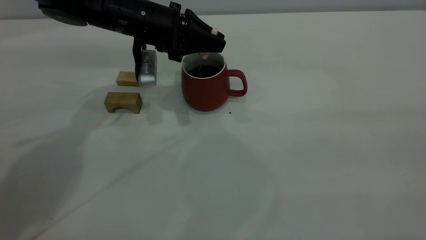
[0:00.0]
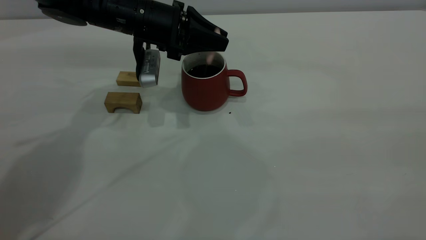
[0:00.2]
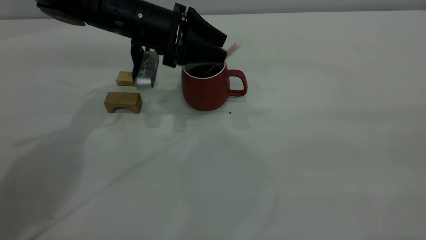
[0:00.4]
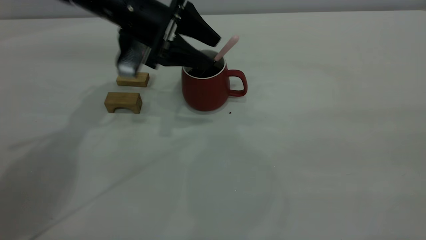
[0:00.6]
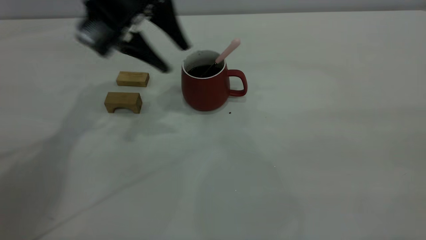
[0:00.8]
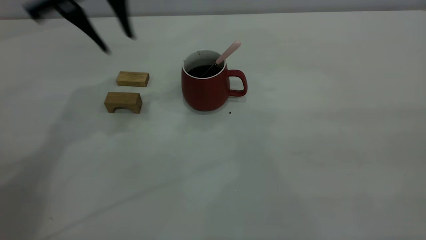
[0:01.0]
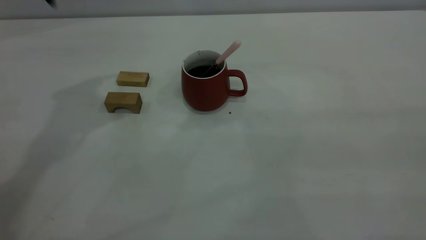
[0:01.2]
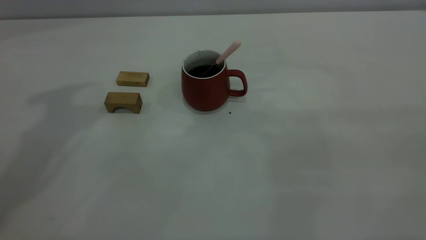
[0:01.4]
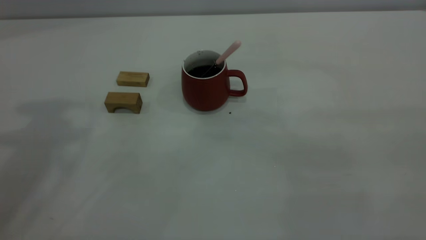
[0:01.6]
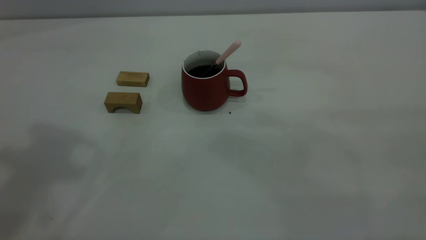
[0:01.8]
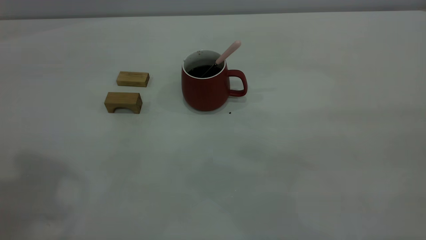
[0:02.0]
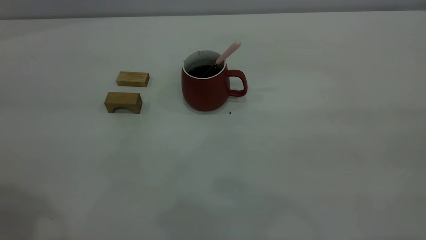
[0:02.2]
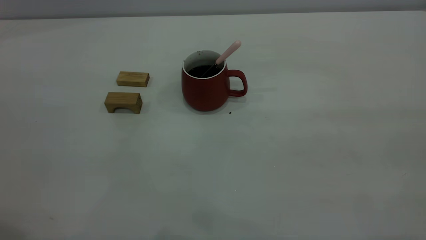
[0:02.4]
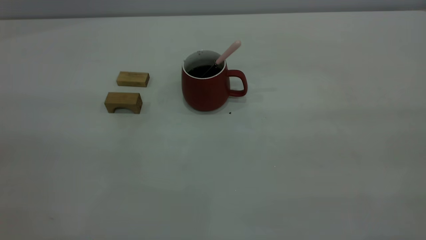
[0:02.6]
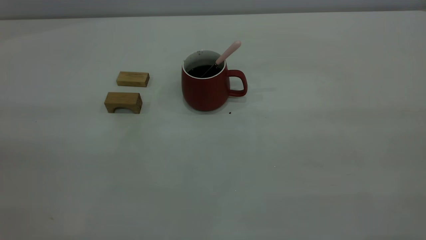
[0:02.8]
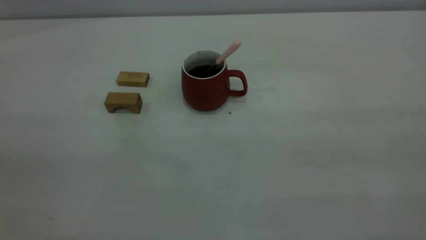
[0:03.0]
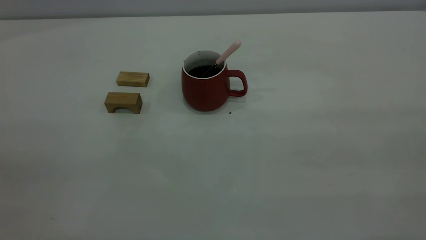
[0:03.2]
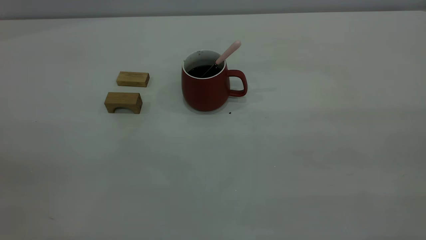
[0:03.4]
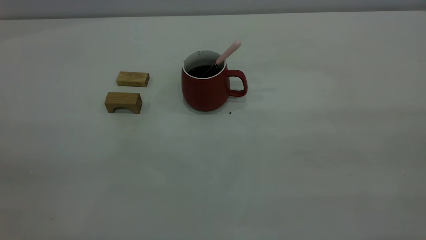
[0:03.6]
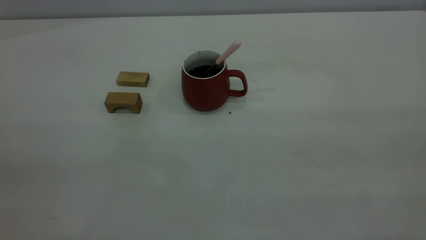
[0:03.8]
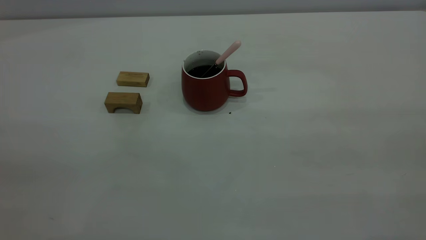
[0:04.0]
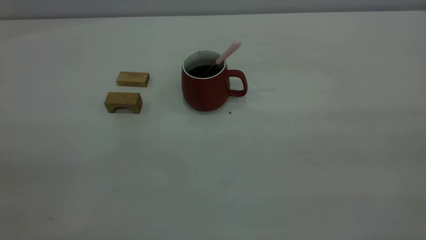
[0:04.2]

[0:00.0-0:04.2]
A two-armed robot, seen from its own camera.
0:00.0 to 0:01.4: The left gripper heads upward, covering roughly 30 cm, and opens up.
